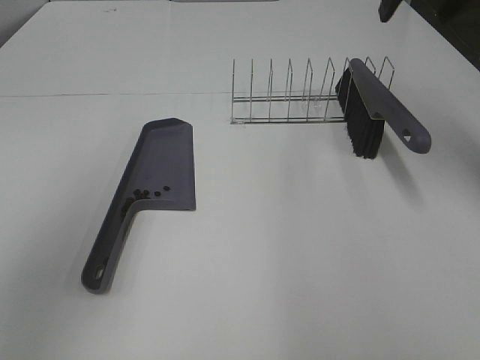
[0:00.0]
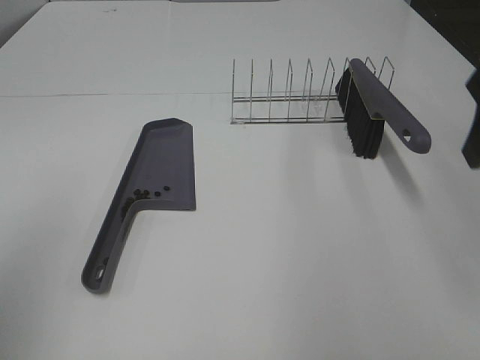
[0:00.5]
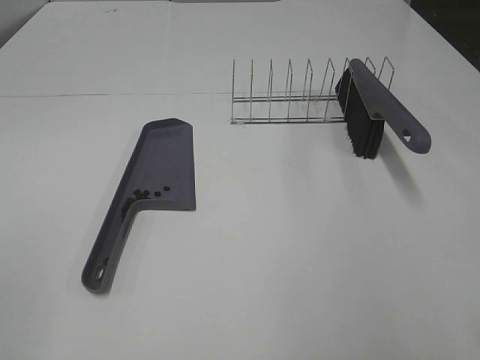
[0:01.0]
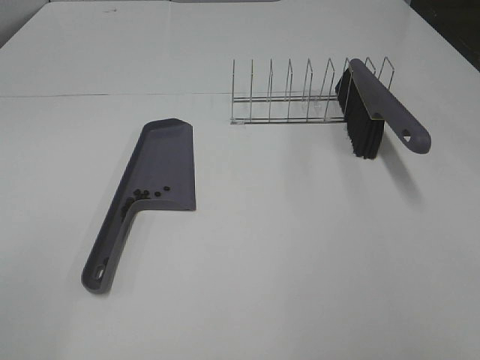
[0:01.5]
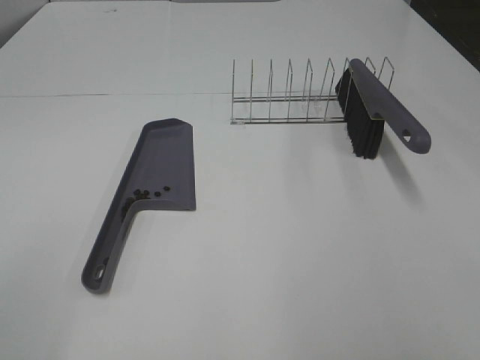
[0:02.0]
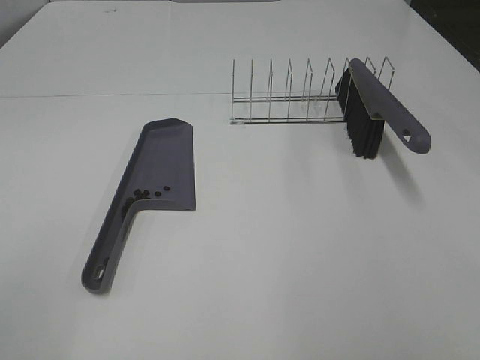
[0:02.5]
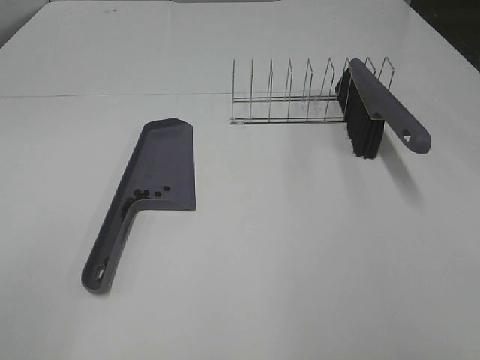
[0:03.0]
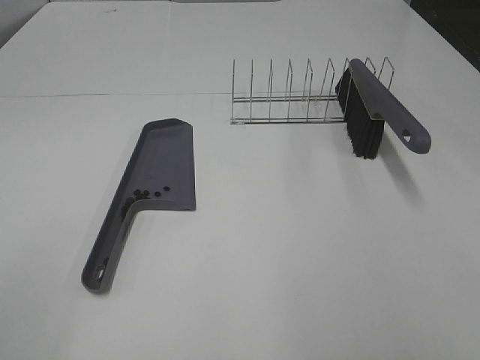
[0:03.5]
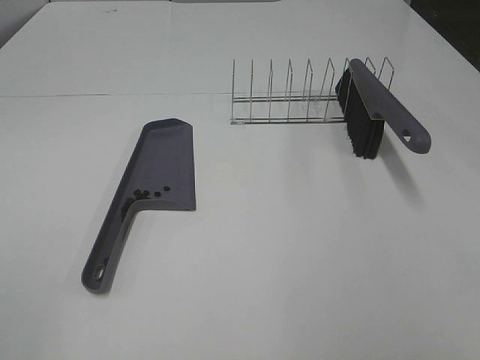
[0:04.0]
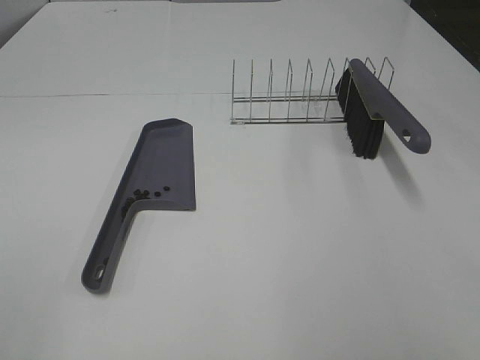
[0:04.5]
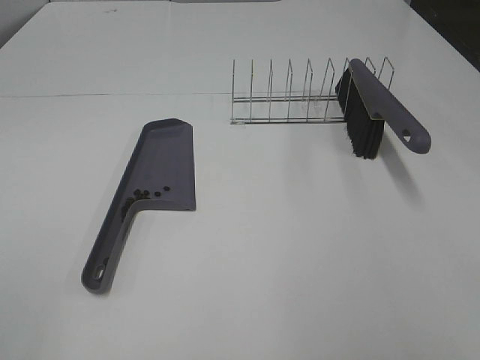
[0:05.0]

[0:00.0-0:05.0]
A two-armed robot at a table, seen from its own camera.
Task of the whole recording: Sweep Coffee Bean.
0:00.0 to 0:02.5: The left gripper moves backward and downward, approximately 20 cm. Meanwhile the right gripper moves backward, some 40 cm.

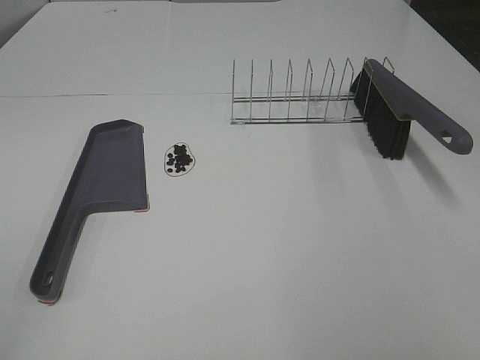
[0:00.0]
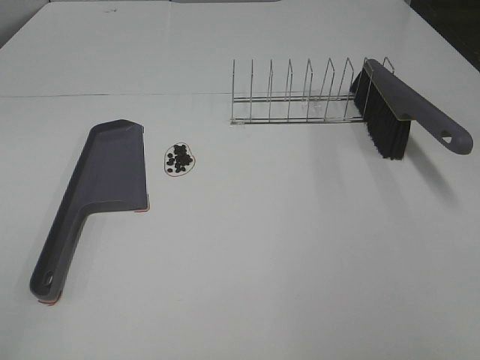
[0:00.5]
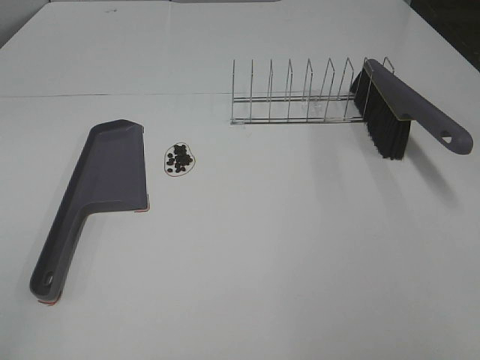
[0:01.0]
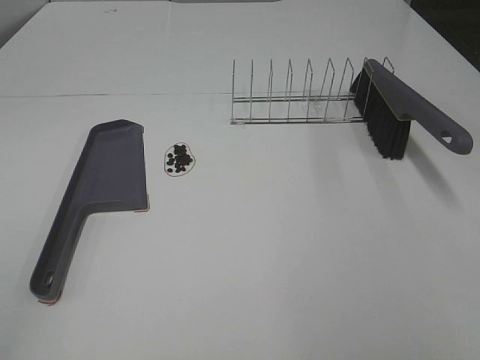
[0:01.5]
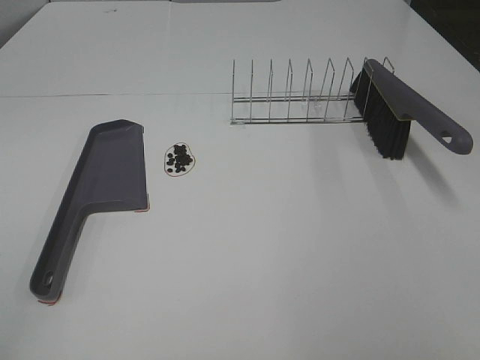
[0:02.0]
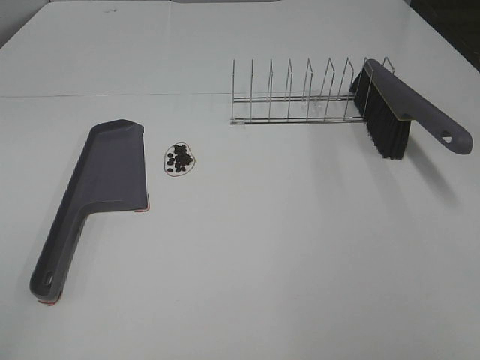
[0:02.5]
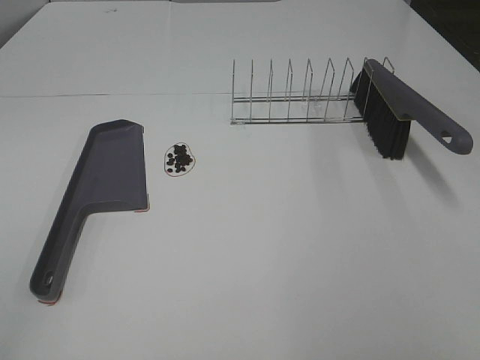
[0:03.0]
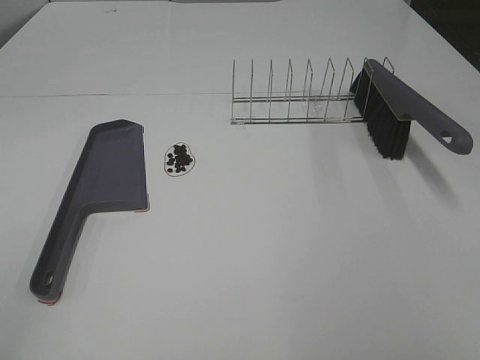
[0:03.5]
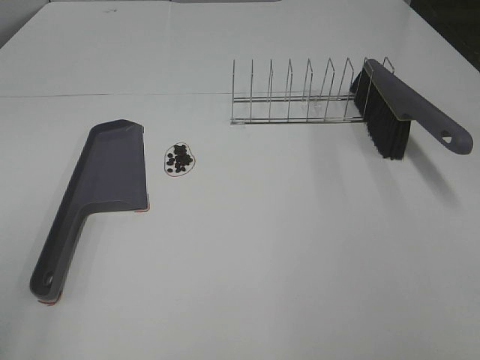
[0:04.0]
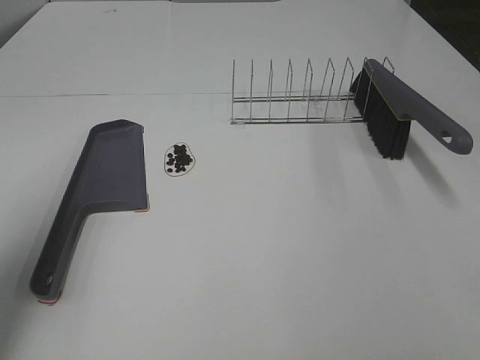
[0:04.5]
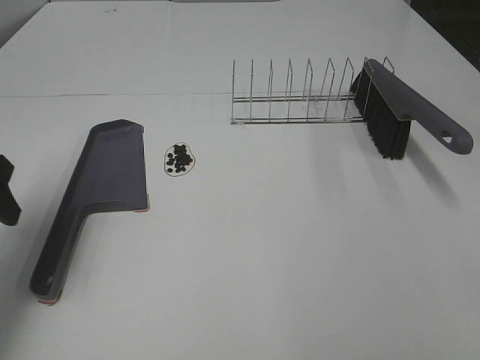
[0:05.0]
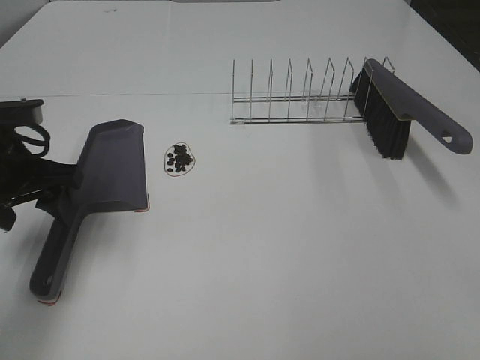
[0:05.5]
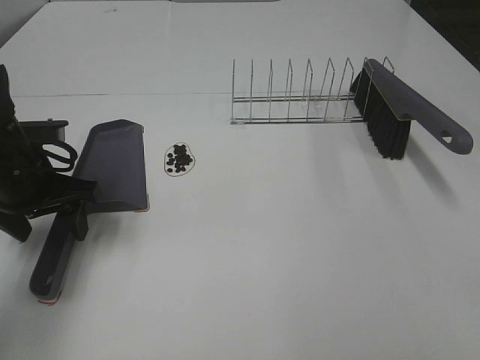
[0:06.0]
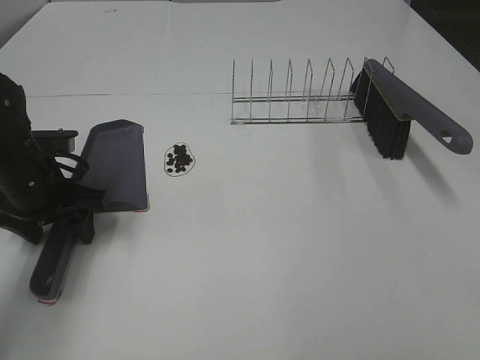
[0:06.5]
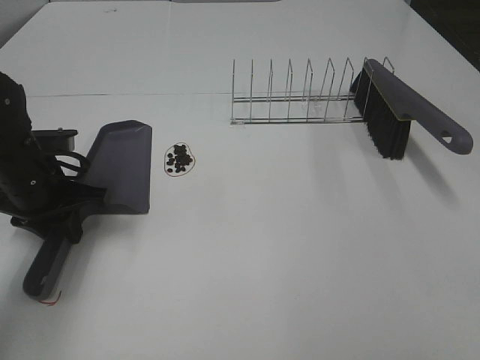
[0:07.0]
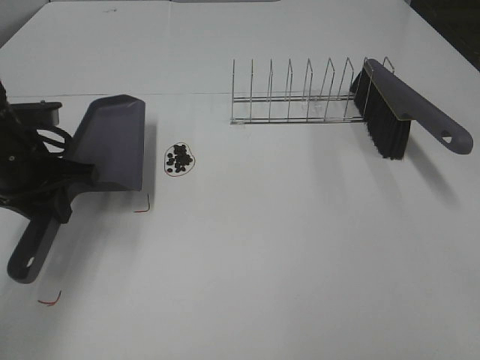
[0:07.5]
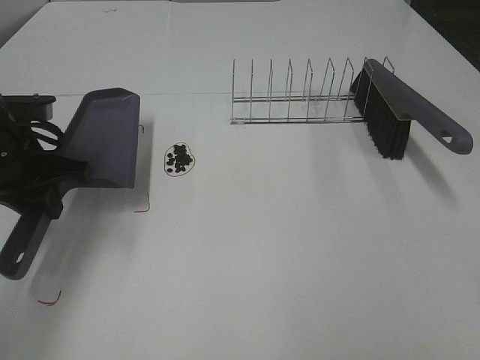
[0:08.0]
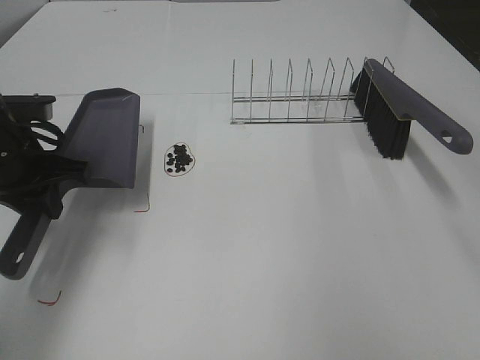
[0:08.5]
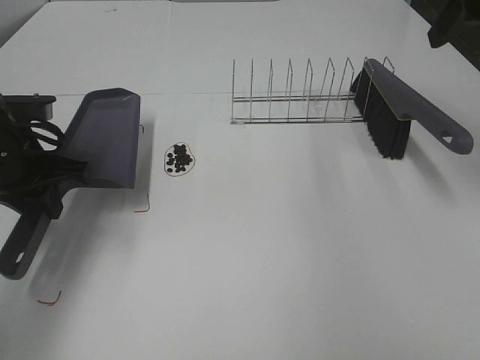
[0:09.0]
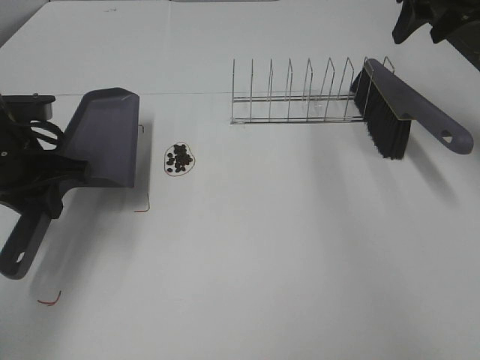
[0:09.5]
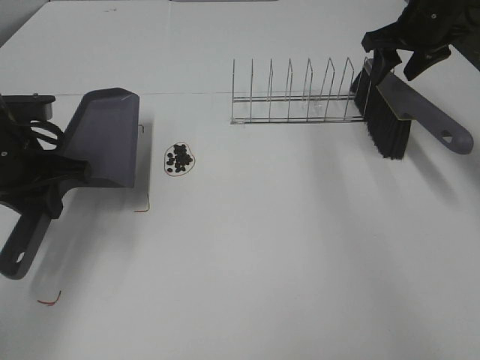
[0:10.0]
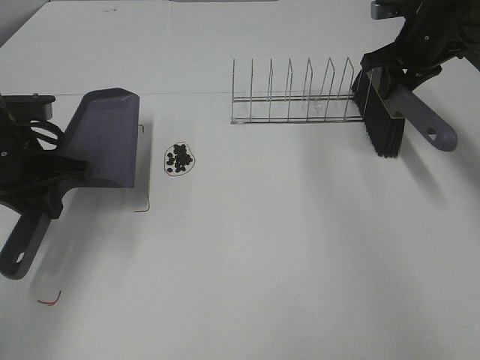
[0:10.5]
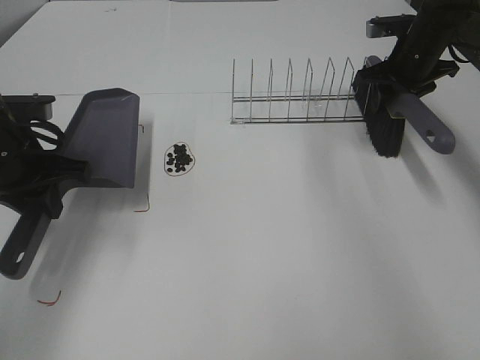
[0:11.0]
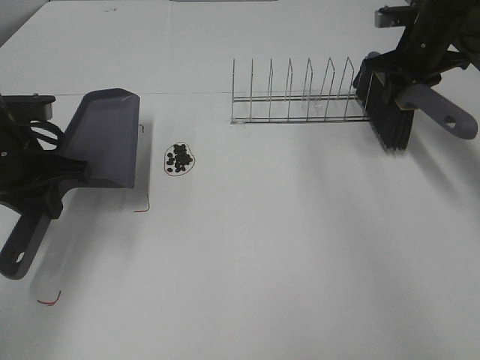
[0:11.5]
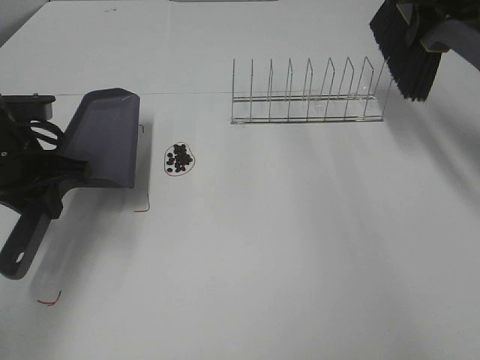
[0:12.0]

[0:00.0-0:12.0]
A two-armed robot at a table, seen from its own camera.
Task of the whole recording: Sweep Coffee Bean.
Step, 0:00.0 to 0:07.0: Left hand: grab the dustpan.
Step, 0:08.0 to 0:10.5: Right hand:grab the broom.
0:00.0 to 0:02.0: The two grippers keep their place.
0:04.0 to 0:06.0: The left gripper goes roughly 30 cm forward and downward.
0:06.0 to 0:08.0: The left gripper closes its fingers.
0:08.0 to 0:10.0: The right gripper is displaced forward by about 50 cm.
0:10.0 to 0:12.0: The right gripper is displaced upward by some 5 cm, and closes up.

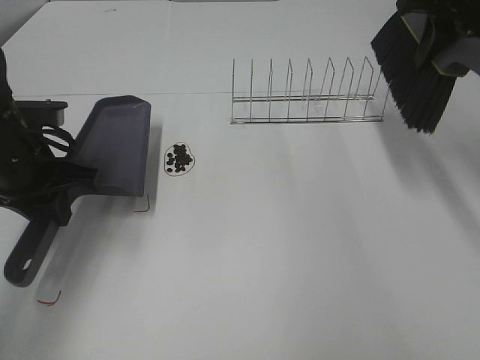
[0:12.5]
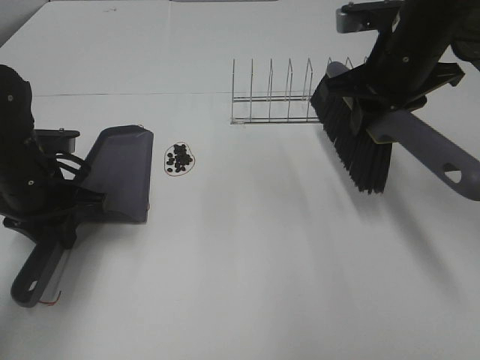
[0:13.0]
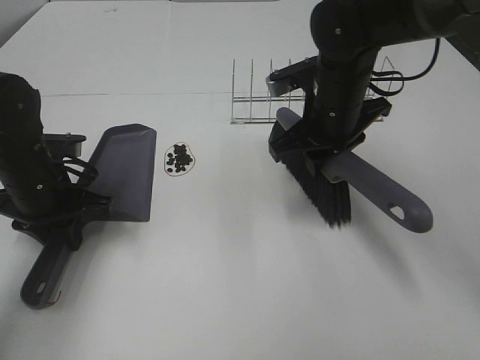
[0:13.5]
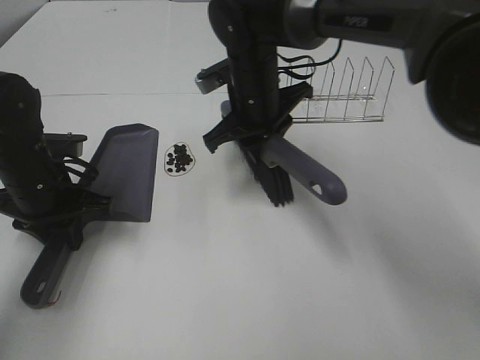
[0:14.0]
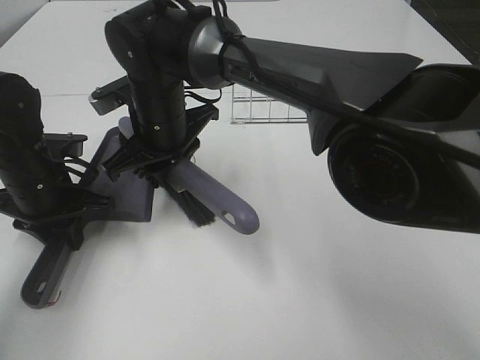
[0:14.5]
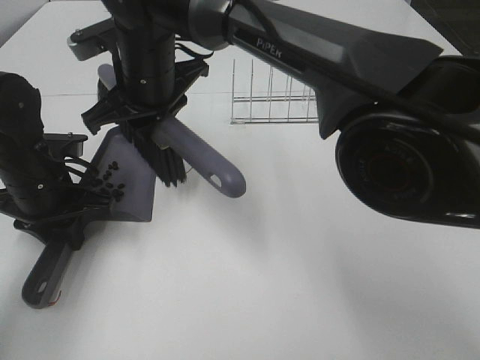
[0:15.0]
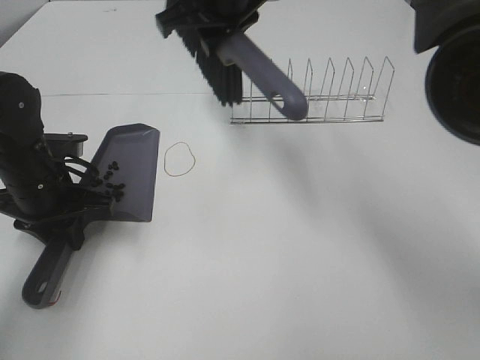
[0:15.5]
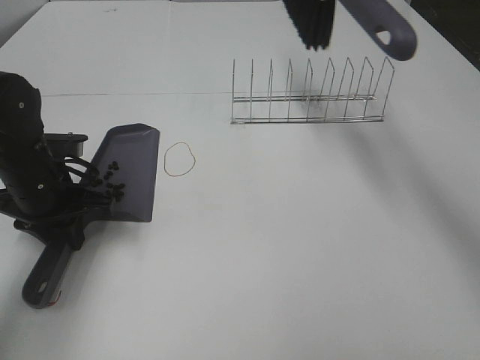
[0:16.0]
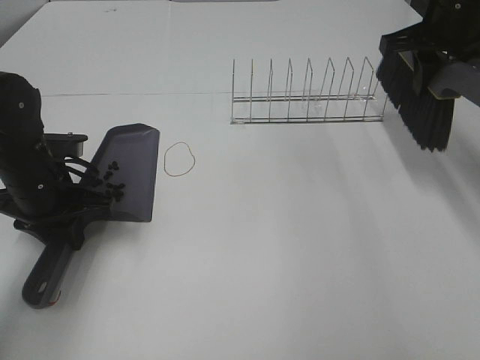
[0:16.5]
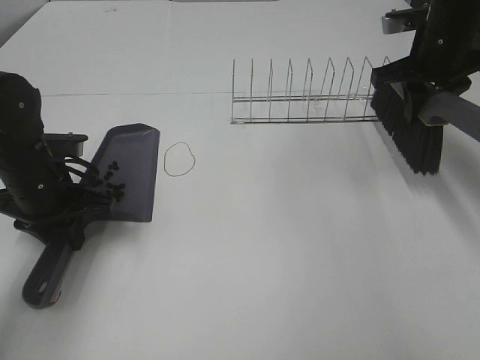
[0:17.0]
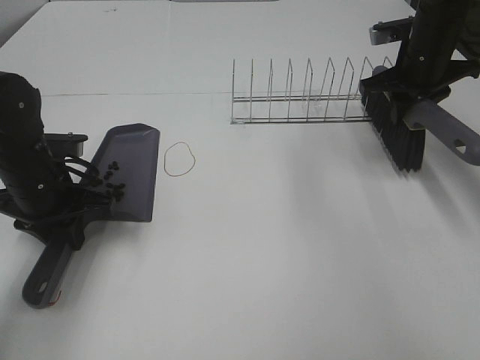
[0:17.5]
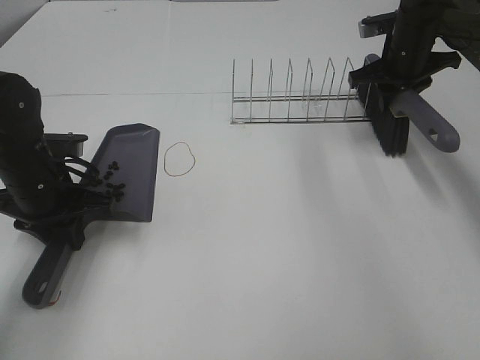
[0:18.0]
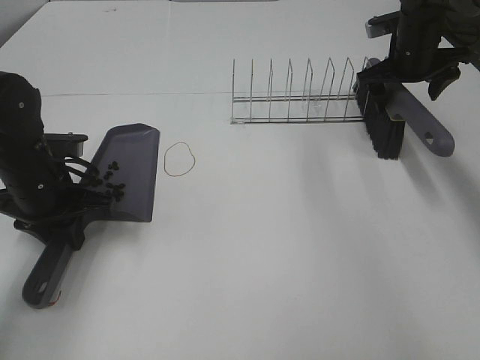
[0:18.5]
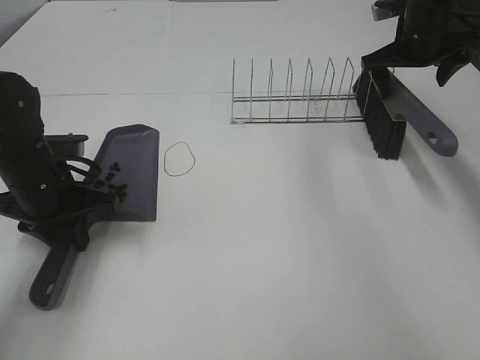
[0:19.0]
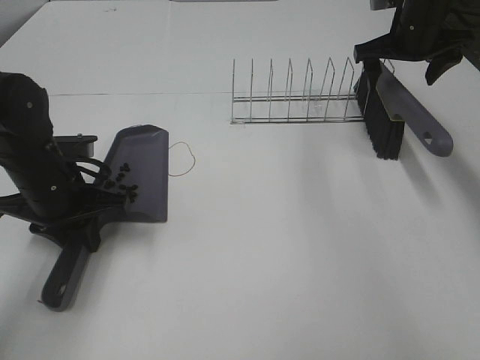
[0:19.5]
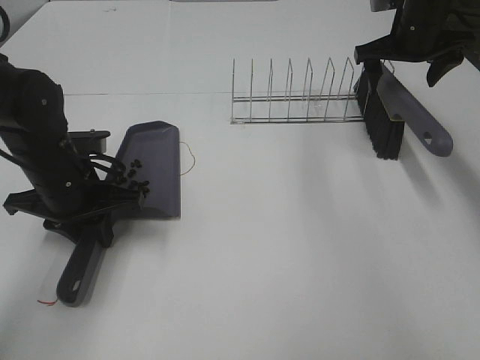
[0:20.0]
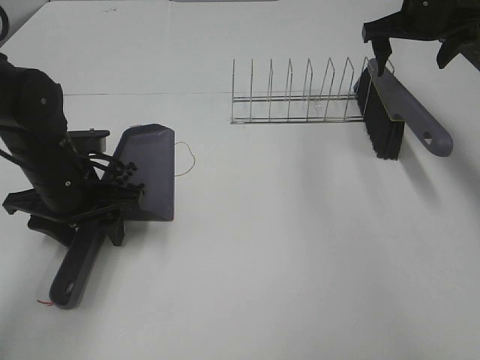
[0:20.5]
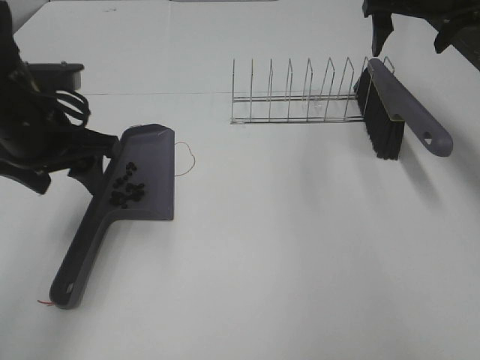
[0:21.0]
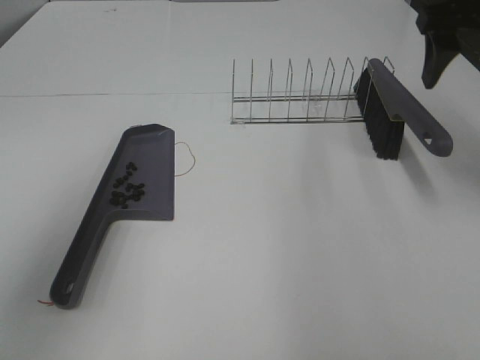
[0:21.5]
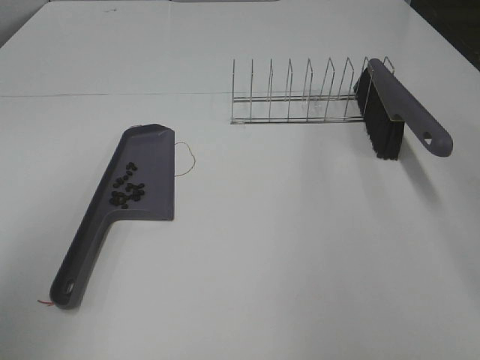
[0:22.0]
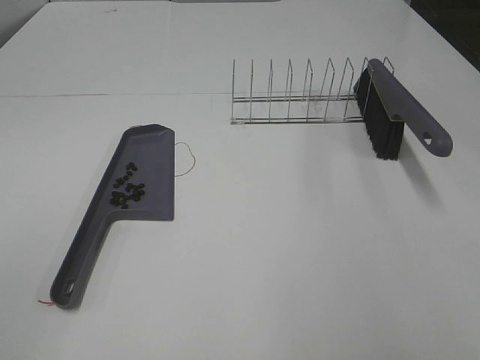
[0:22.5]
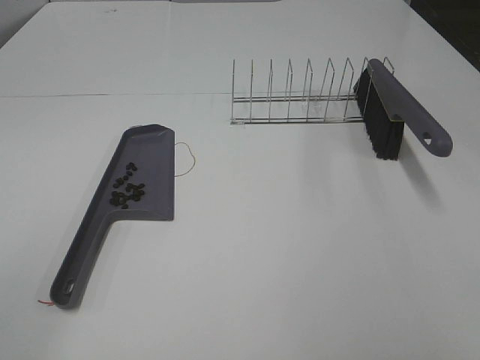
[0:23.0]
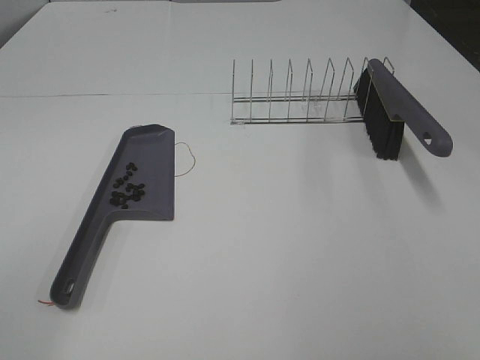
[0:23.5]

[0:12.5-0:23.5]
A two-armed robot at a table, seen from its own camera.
Task of the whole recording: Sweep Coffee Bean.
Step, 0:12.5 to 0:15.0: Right hand:sweep the coffee beans into the dustpan.
Step, 0:15.5 to 0:18.5: Right hand:place the broom on the rack.
Step, 0:19.0 to 0:20.5: Left hand:place the dustpan on the table.
0:12.5 to 0:14.5: The right gripper goes roughly 40 cm to the left and downward. The left gripper is displaced downward by approximately 5 cm.
0:14.5 to 0:16.0: The right gripper goes approximately 30 cm to the right and upward.
0:16.0 to 0:18.0: The right gripper travels downward and to the right by roughly 25 cm.
0:18.0 to 0:20.0: The right gripper opens.
0:20.0 to 0:21.5: The left gripper is displaced upward and backward by approximately 25 cm, and opens its fingers; the right gripper goes about 20 cm backward and upward.
0:21.5 to 0:23.5: The right gripper travels backward by approximately 35 cm, while the left gripper shifts roughly 20 cm backward.
